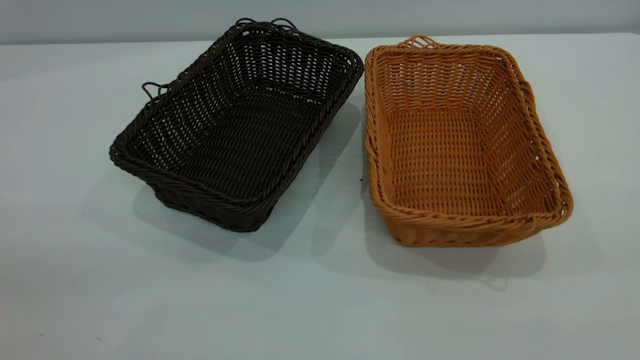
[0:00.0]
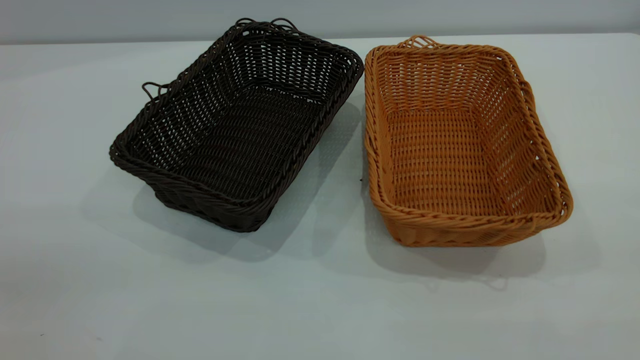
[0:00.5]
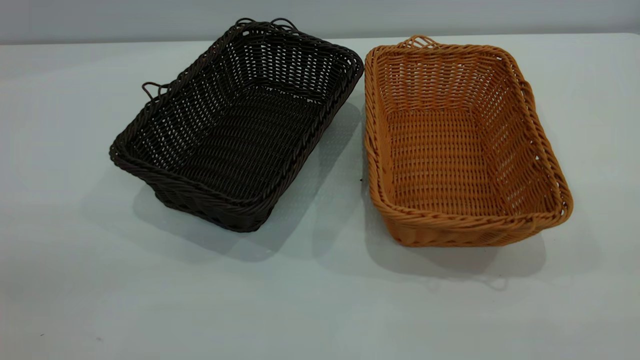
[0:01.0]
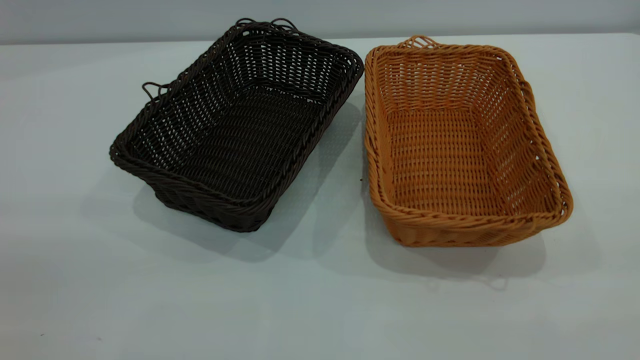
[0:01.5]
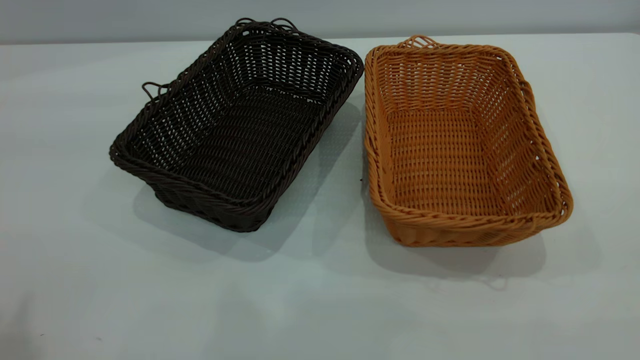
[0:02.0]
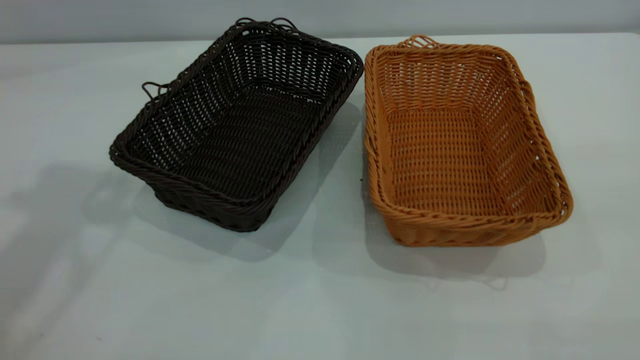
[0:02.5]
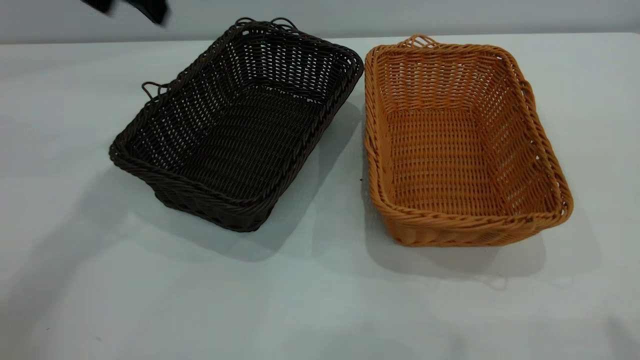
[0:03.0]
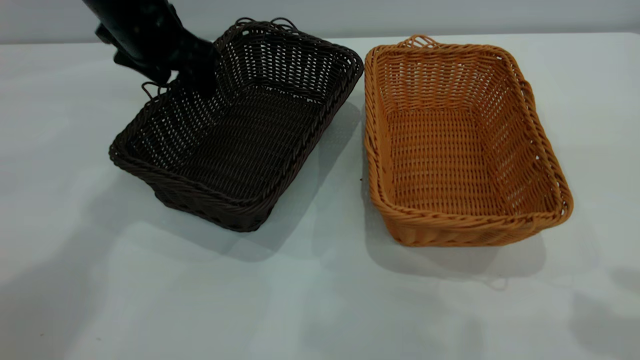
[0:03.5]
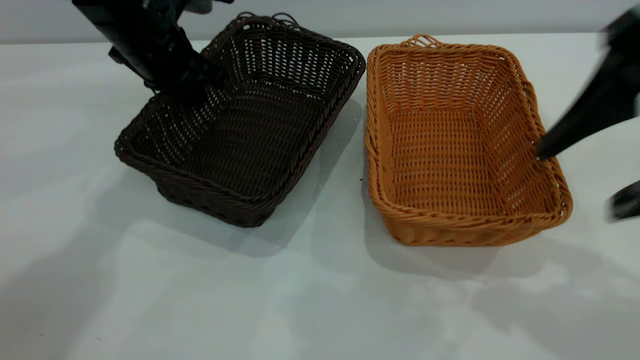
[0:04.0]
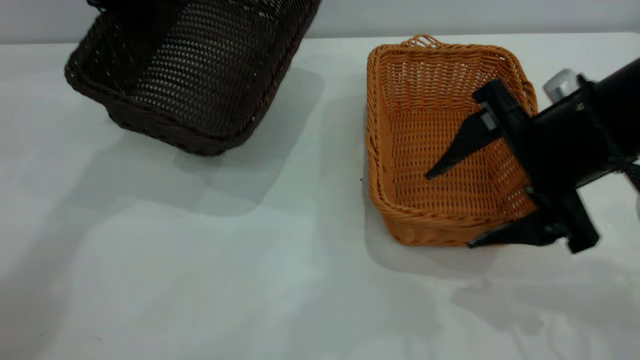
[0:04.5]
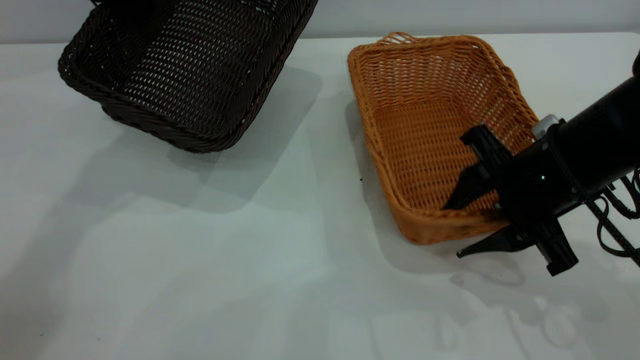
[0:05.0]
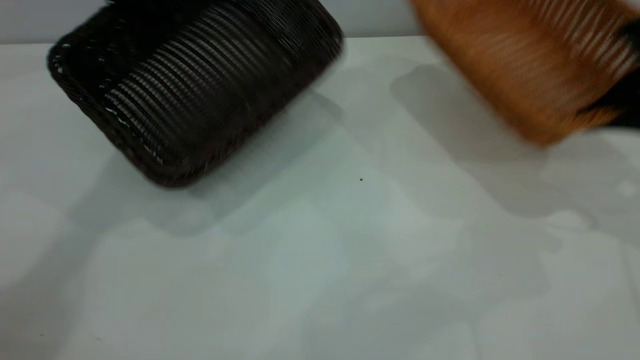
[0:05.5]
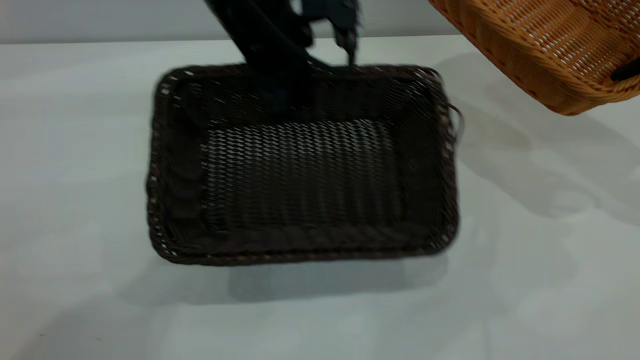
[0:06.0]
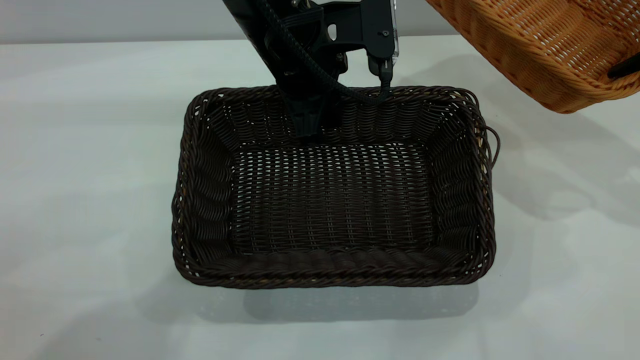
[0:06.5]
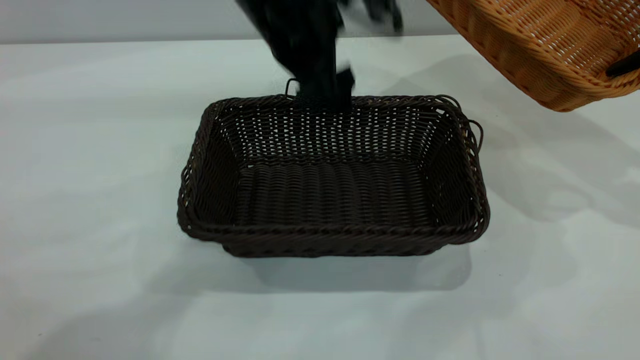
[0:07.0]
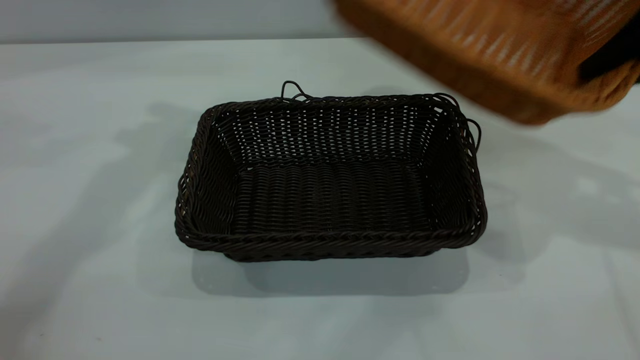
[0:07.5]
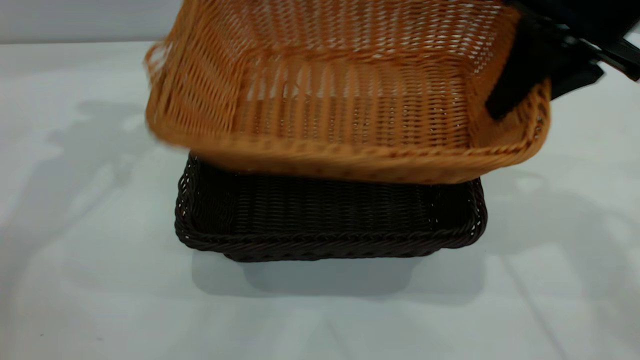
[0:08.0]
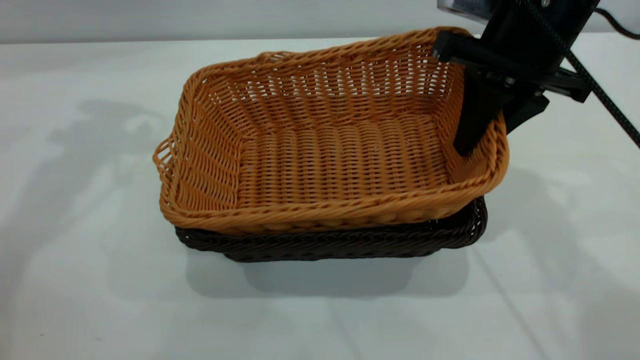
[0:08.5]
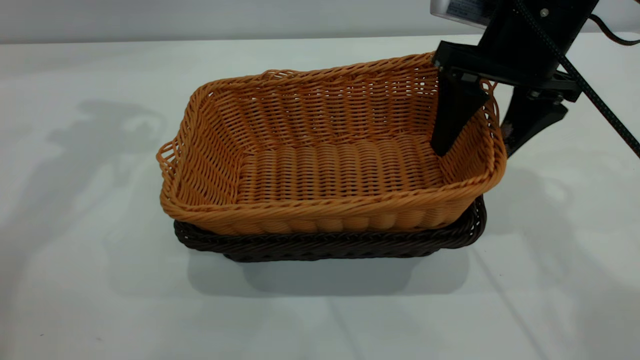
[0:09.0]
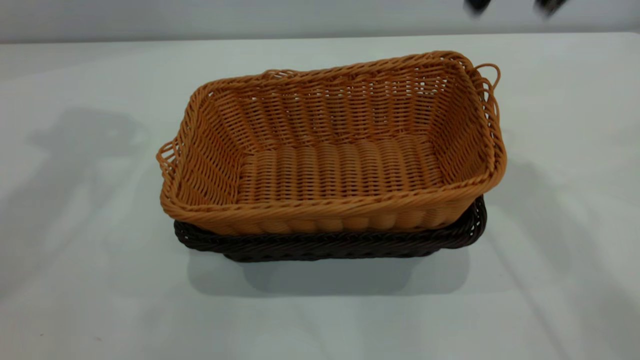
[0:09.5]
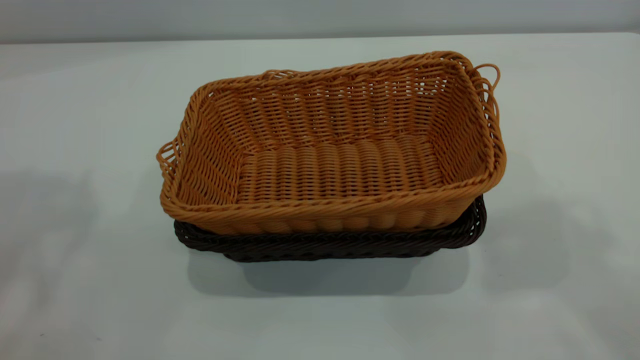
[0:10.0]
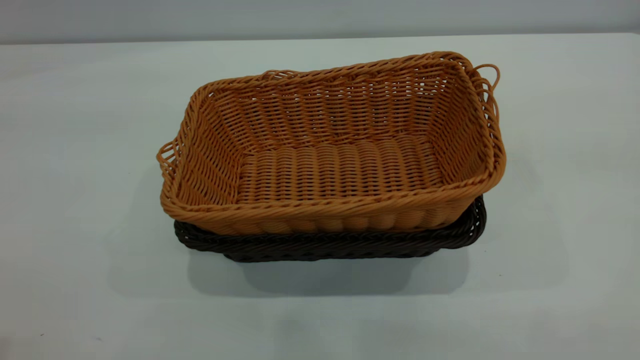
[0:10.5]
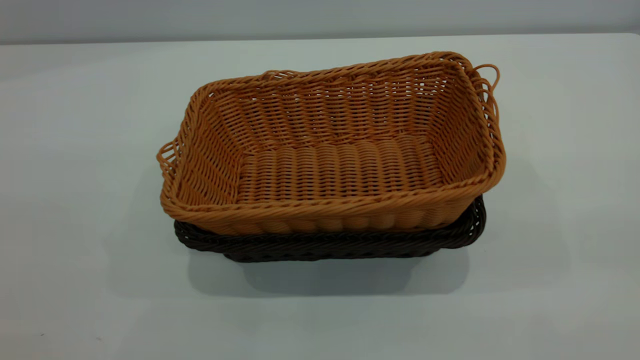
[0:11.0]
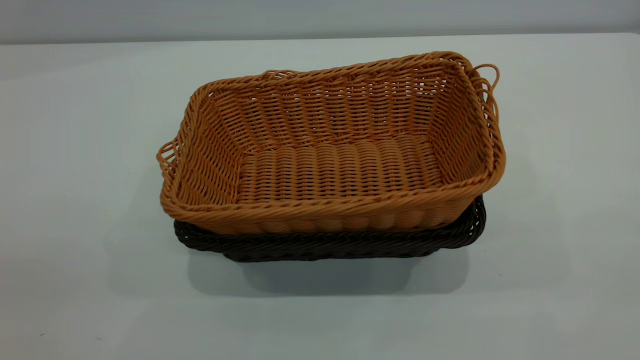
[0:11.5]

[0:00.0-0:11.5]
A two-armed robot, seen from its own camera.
Task of the whole recording: the left gripper grasp the black basket and place it in the center of the table, the right gripper grasp the brown basket and place it inside the black one.
Step, 0:00.0 to 0:05.0: Pick up the light basket with the right gripper.
Step, 0:05.5 to 0:07.0: Move the dark basket to the center of view.
Step, 0:07.5 to 0:09.0: Place the light basket on the dark basket.
0:02.0 to 0:04.0: The right gripper shifts approximately 25 cm forward and downward. Meanwhile the left gripper goes roughly 40 cm forward and downward, and closes.
0:04.0 to 0:06.0: The right gripper is displaced to the right and forward by roughly 20 cm, and closes; the left gripper goes roughly 15 cm to the right and backward.
0:06.0 to 0:07.5: The right gripper travels to the left by some 5 cm; the left gripper travels to the left and upward by about 20 cm, and opens its fingers.
0:07.5 to 0:09.5: The right gripper moves to the left and upward, approximately 15 cm, and opens; the left gripper travels upward and to the left by about 15 cm.
0:09.5 to 0:11.5: Both grippers travel together backward, roughly 40 cm.
